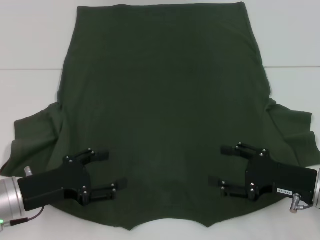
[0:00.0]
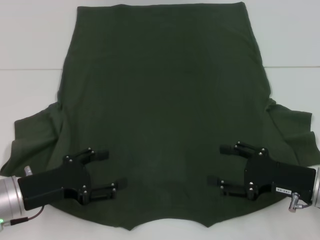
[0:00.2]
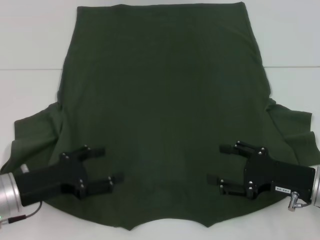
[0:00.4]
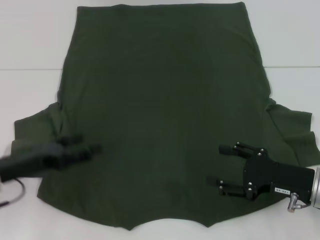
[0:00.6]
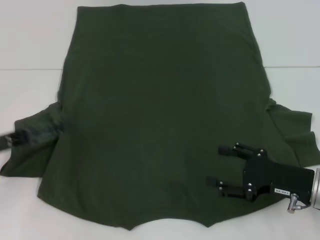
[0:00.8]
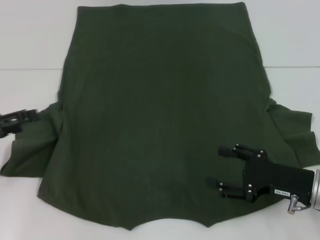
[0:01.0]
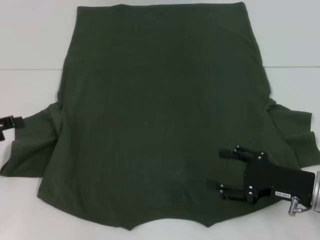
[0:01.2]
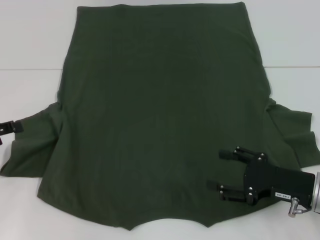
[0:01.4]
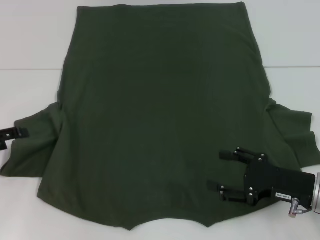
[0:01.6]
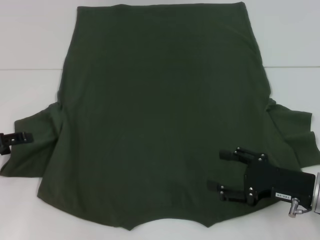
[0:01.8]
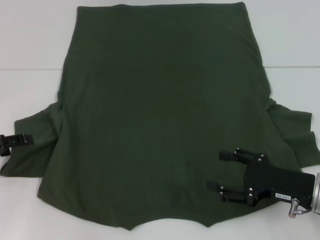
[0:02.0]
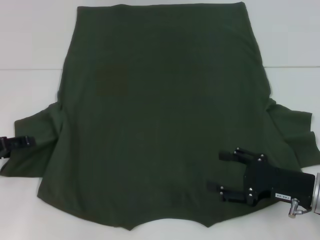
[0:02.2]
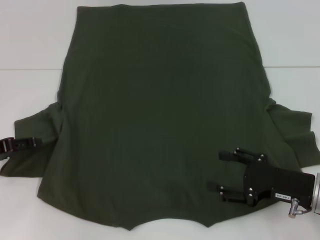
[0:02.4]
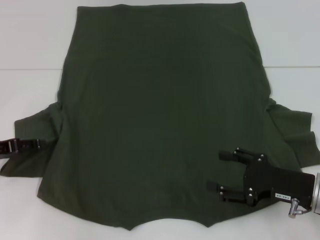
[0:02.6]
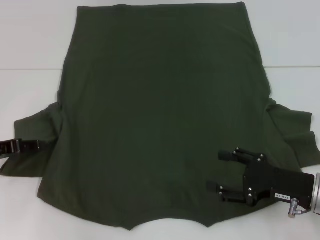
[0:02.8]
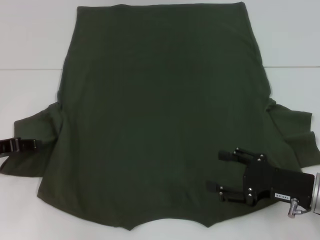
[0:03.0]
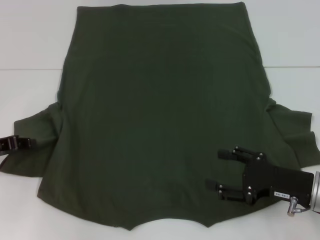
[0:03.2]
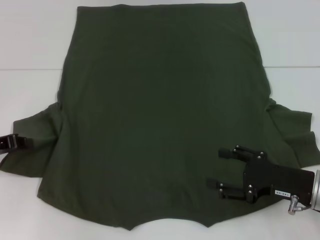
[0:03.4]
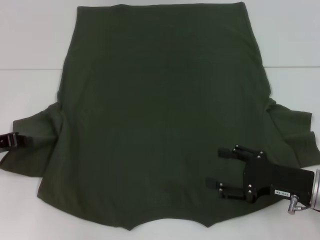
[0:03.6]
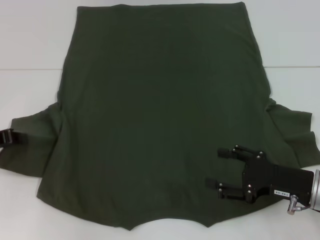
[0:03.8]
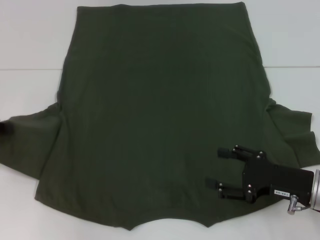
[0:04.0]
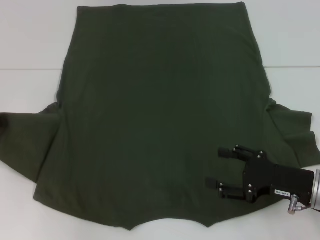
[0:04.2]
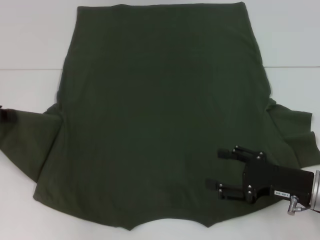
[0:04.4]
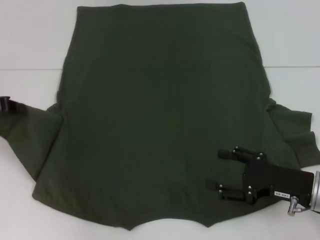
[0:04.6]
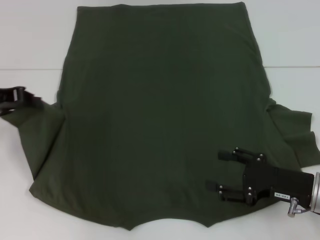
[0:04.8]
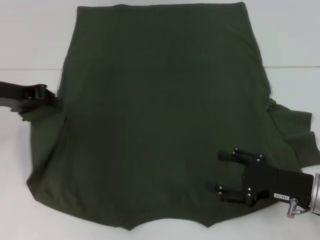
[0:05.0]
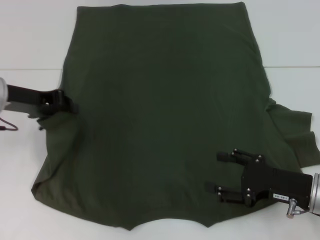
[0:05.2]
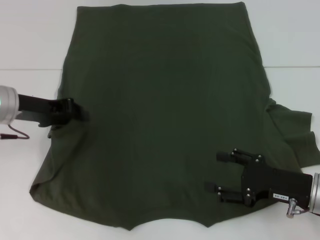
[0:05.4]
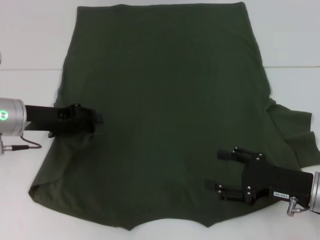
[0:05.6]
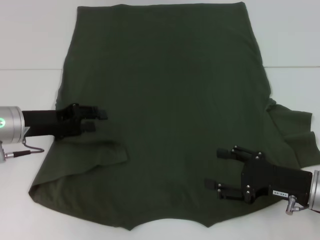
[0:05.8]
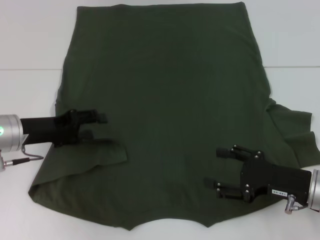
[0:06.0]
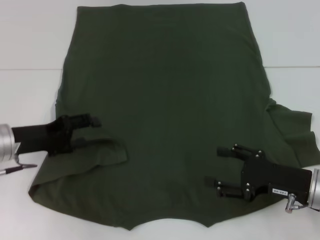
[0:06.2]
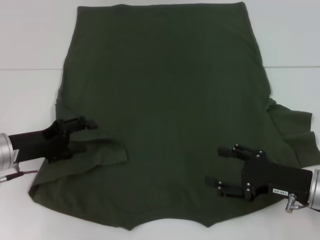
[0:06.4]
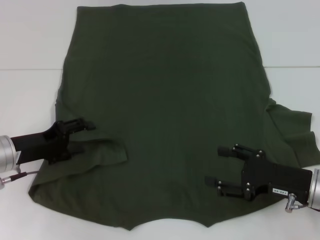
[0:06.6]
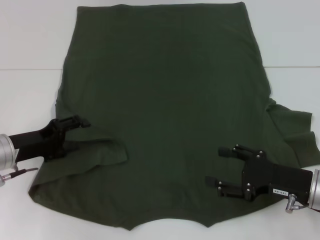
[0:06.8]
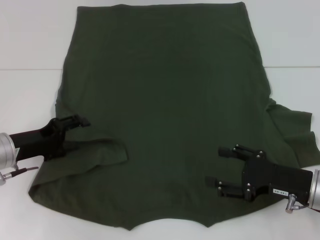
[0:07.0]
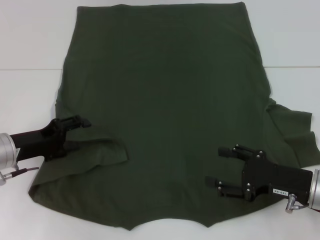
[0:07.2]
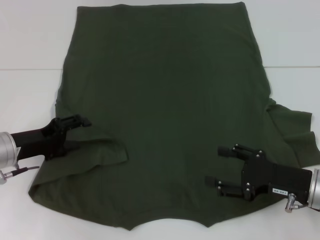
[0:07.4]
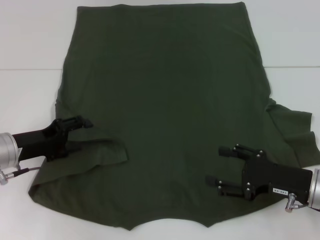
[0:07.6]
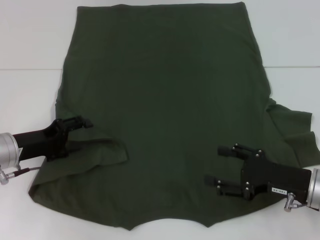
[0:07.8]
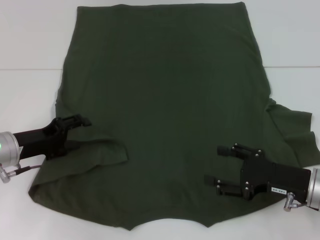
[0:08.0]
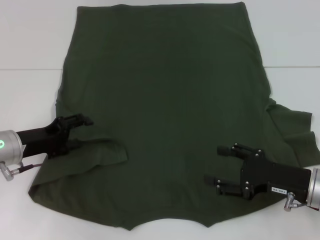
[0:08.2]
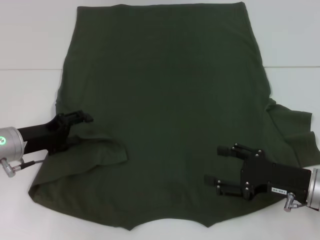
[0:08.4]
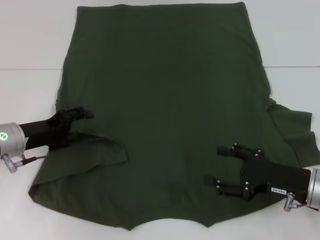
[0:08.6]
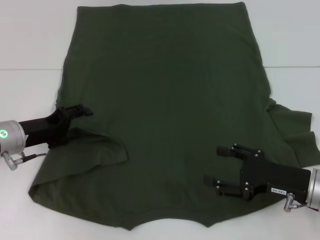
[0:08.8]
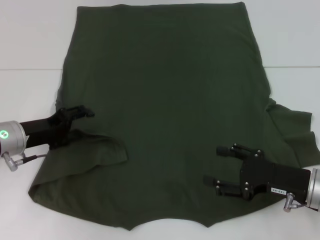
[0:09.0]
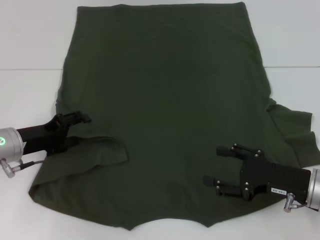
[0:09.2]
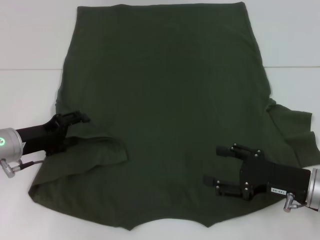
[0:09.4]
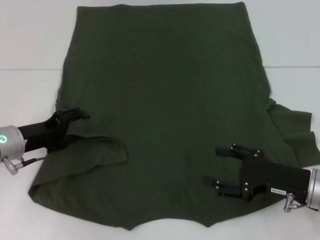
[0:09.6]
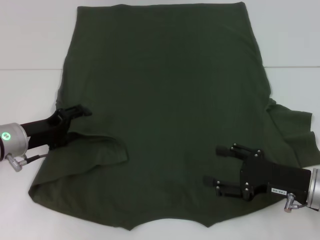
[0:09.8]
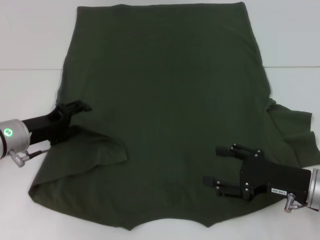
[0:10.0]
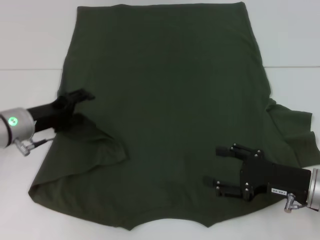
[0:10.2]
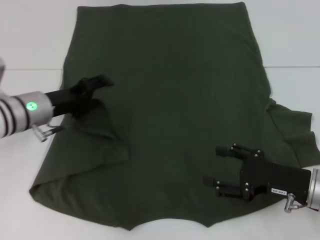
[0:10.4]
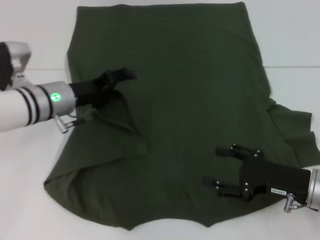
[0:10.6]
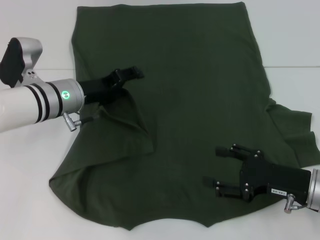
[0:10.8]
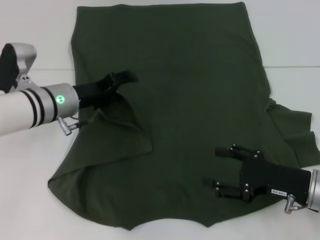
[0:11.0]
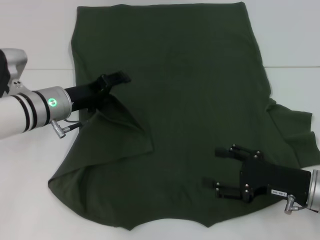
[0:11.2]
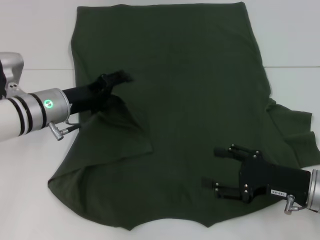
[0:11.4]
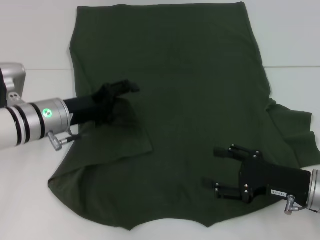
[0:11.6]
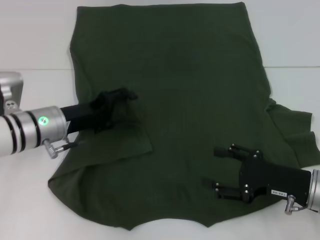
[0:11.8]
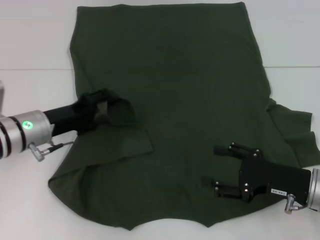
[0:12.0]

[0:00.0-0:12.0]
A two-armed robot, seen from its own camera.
0:00.0 to 0:01.6: The left gripper goes some 15 cm to the left and forward.
0:01.6 to 0:03.0: The left gripper closes its fingers.
0:03.0 to 0:04.4: The left gripper ends up roughly 5 cm from where it was, and closes up.
0:04.4 to 0:06.0: The left gripper is displaced to the right by approximately 10 cm, and opens up.
0:06.0 to 0:07.6: The left gripper opens its fingers.
0:07.6 to 0:09.0: The grippers move only a little.
0:09.0 to 0:10.4: The left gripper ends up about 5 cm from where it was.
0:10.4 to 0:12.0: The grippers make only small movements.

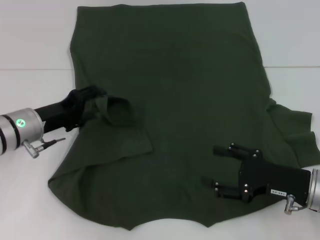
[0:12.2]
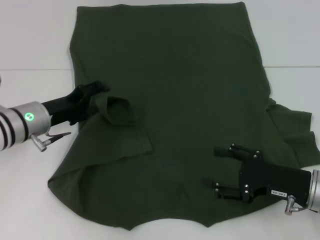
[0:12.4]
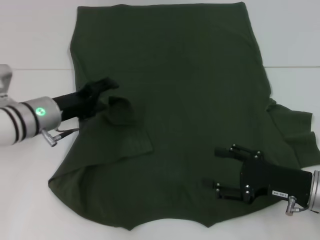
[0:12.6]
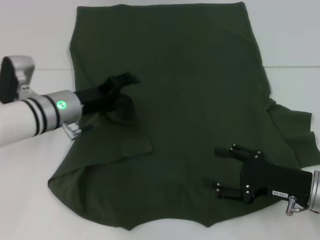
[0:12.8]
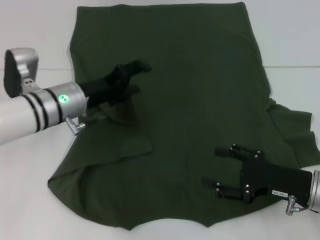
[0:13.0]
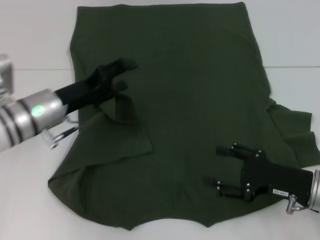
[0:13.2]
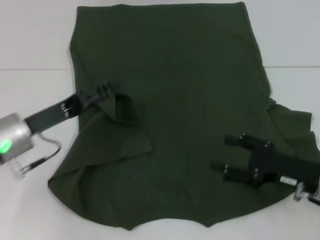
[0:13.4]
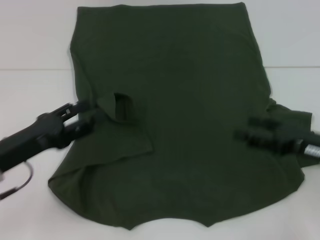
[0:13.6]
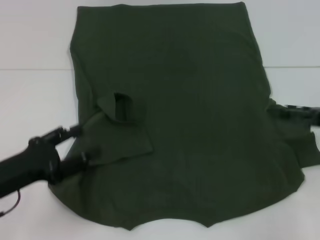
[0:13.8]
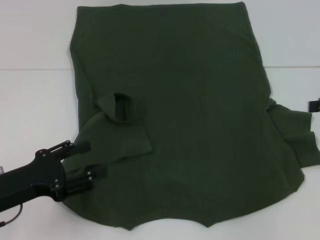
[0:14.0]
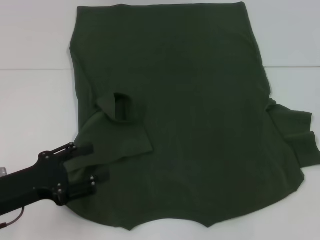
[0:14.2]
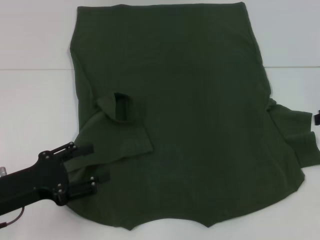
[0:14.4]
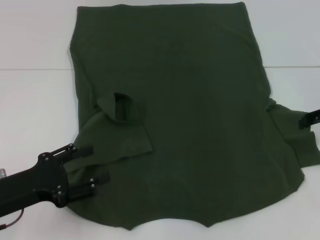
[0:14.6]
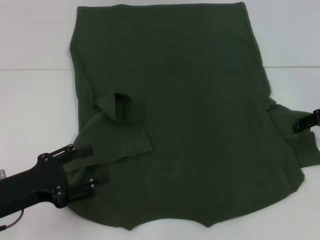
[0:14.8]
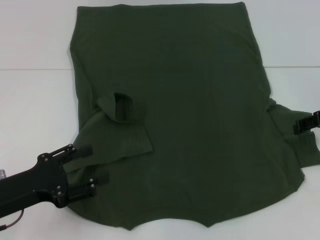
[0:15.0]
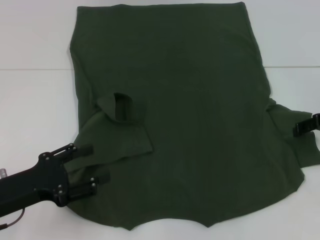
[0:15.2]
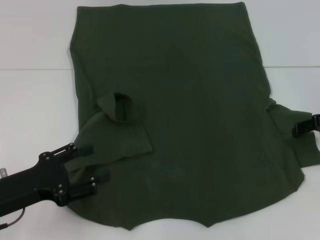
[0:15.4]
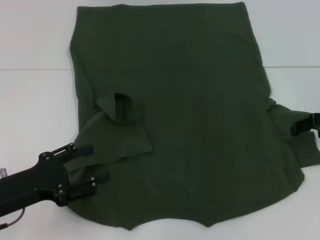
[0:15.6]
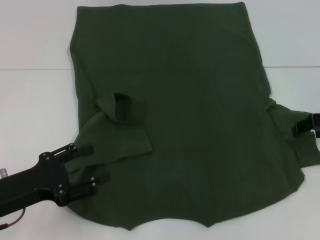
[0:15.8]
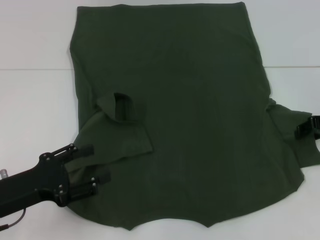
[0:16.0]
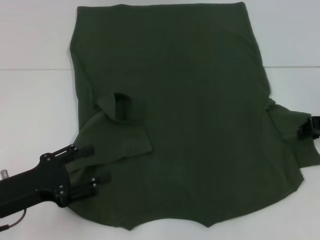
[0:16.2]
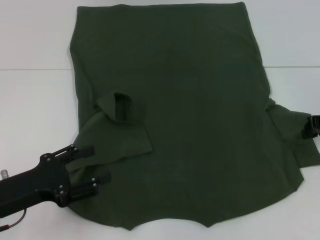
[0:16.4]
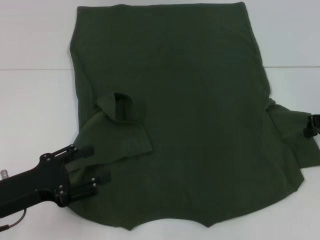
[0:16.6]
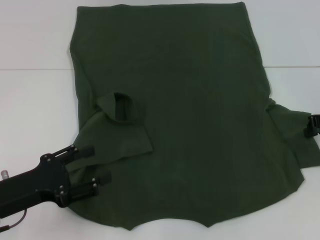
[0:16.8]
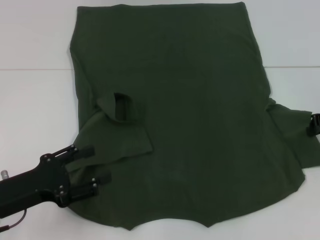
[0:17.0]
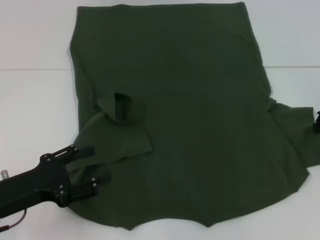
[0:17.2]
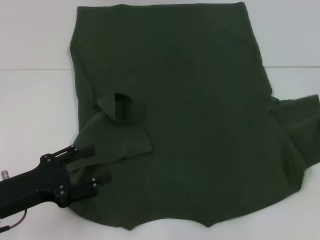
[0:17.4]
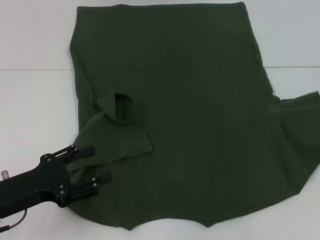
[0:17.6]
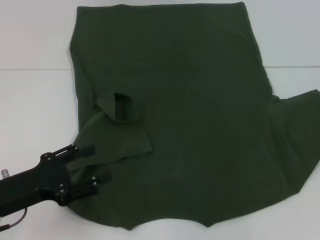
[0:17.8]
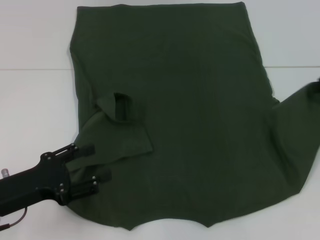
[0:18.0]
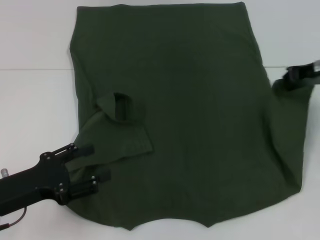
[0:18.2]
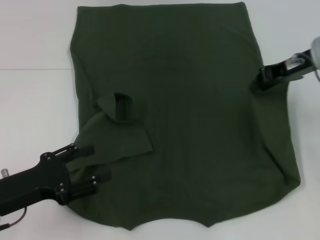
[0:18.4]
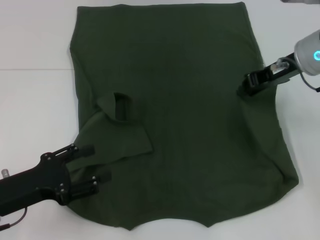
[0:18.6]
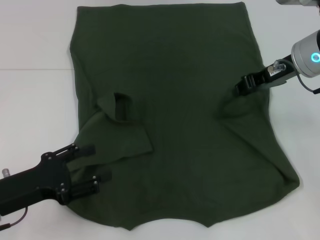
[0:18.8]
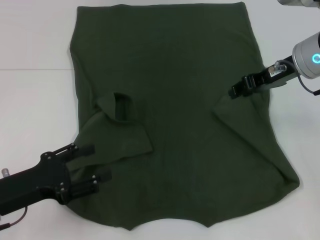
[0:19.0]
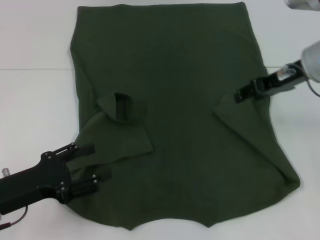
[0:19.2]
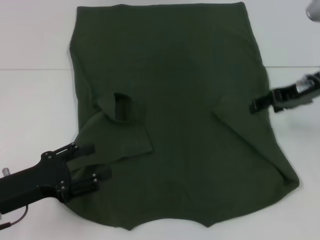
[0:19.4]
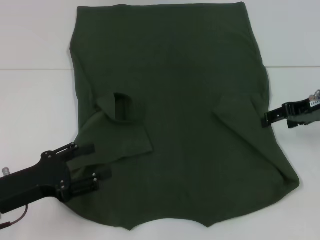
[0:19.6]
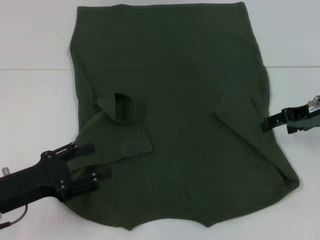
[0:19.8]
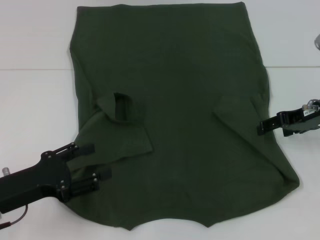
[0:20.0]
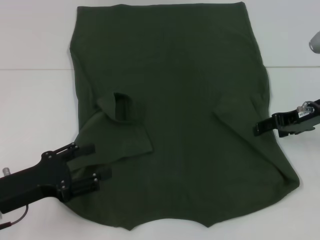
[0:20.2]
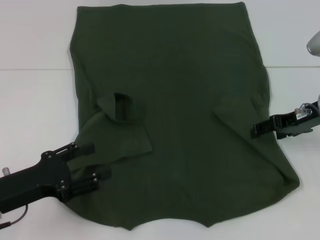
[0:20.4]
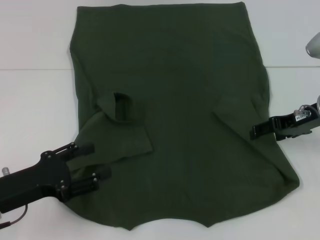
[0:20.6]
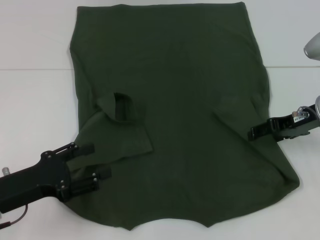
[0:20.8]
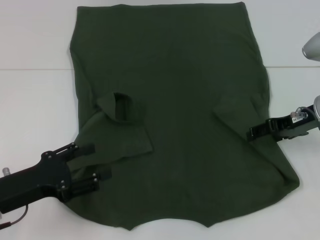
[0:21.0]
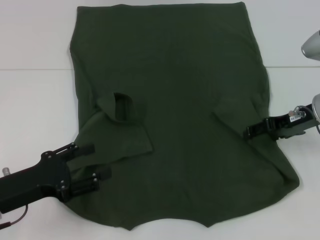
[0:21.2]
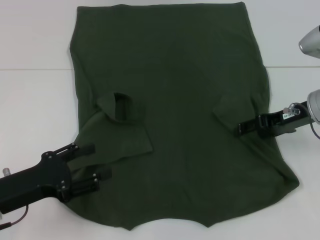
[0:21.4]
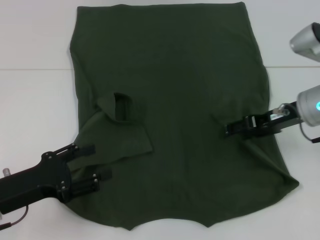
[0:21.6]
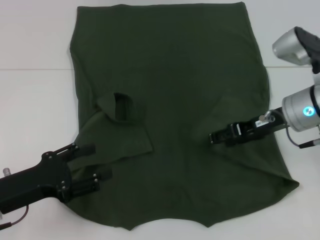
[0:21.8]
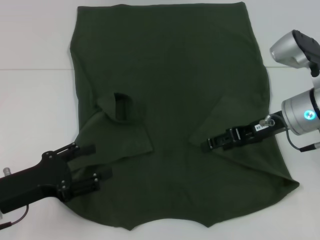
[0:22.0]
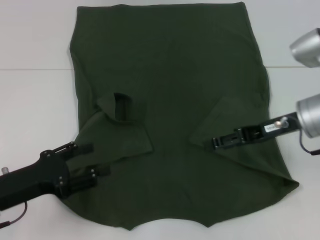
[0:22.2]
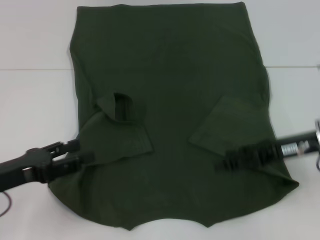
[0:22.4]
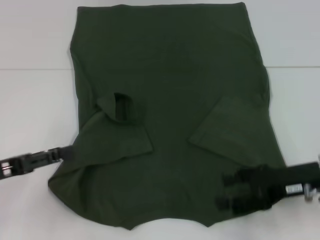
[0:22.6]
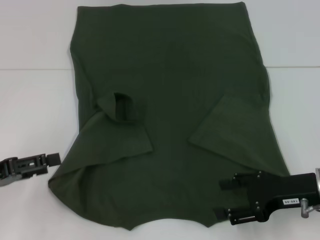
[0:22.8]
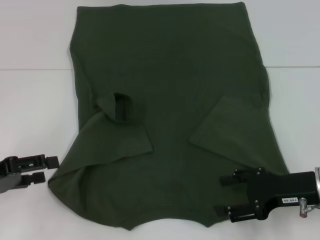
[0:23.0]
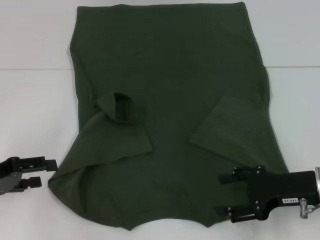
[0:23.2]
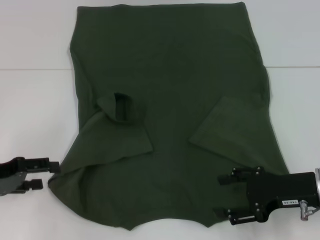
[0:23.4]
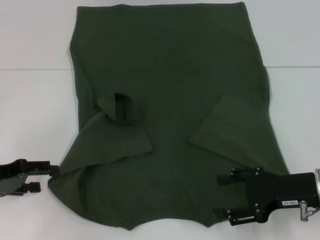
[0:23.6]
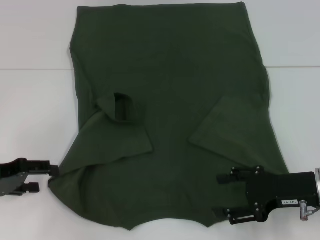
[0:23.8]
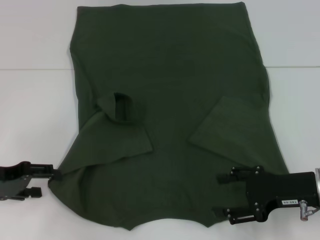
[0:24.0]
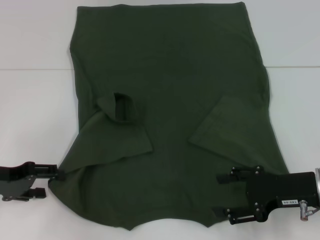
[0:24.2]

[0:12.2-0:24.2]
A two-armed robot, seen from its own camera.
Step, 0:13.0 to 0:21.8: Fold the bottom right sleeve with your right hand.
0:12.2 to 0:13.8: The right gripper travels upward and to the right by some 10 cm. The left gripper goes roughly 10 cm backward.
0:13.8 to 0:15.2: The right gripper goes roughly 10 cm forward.
0:16.6 to 0:18.2: The right gripper is displaced upward by roughly 5 cm.
0:18.2 to 0:19.8: The right gripper travels downward by approximately 5 cm, and opens.
0:19.8 to 0:21.2: There are only small adjustments of the grippers.
0:21.2 to 0:22.6: The right gripper travels backward by some 10 cm. The left gripper ends up some 5 cm from where it was.
0:22.6 to 0:24.2: The left gripper ends up roughly 5 cm from where it was.
